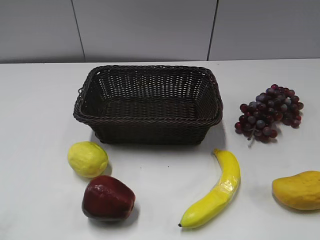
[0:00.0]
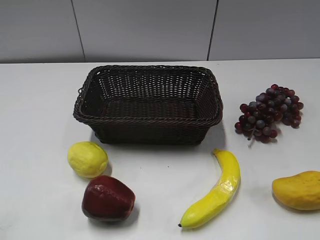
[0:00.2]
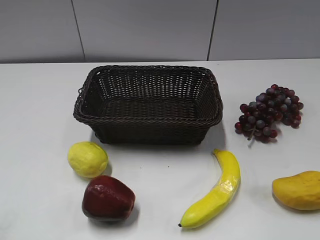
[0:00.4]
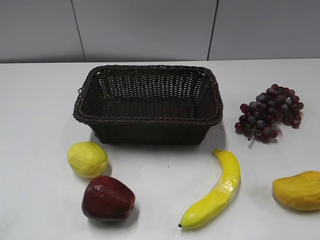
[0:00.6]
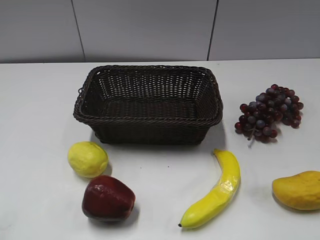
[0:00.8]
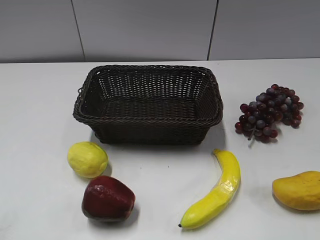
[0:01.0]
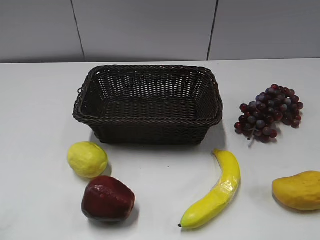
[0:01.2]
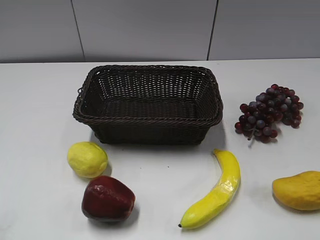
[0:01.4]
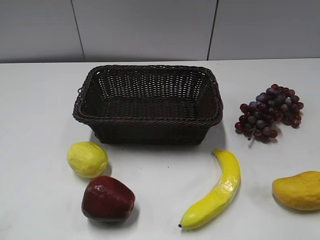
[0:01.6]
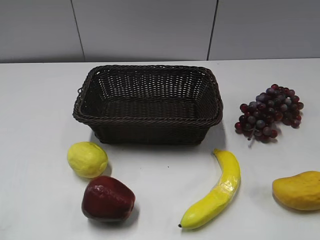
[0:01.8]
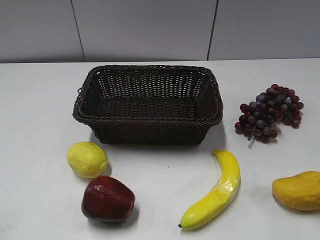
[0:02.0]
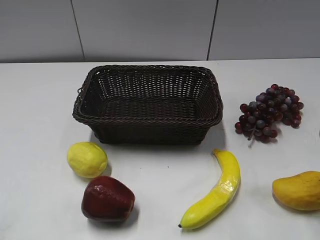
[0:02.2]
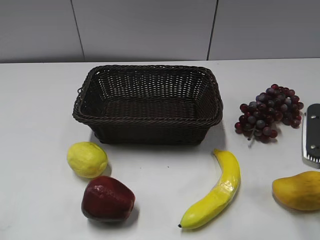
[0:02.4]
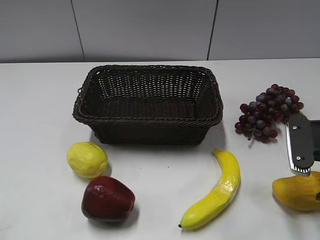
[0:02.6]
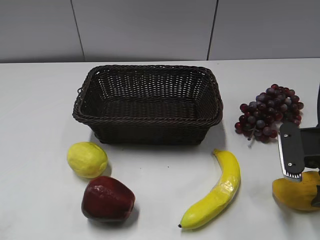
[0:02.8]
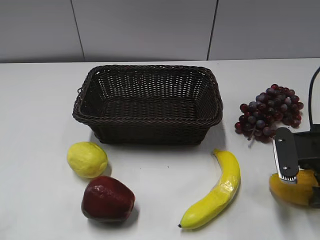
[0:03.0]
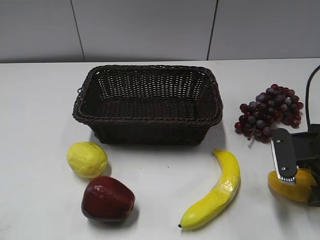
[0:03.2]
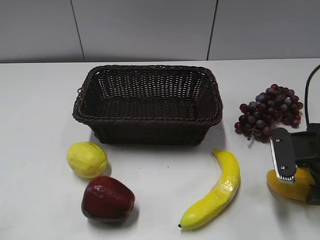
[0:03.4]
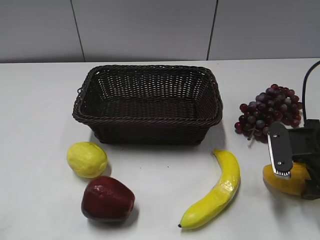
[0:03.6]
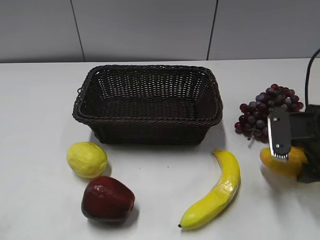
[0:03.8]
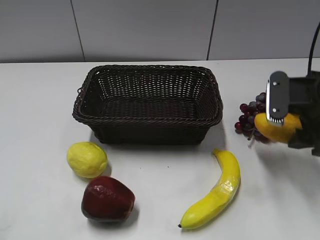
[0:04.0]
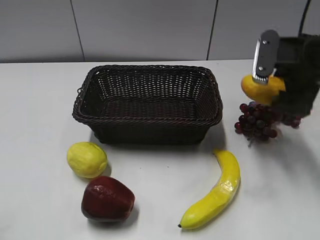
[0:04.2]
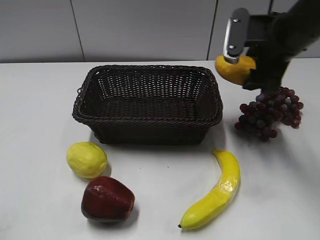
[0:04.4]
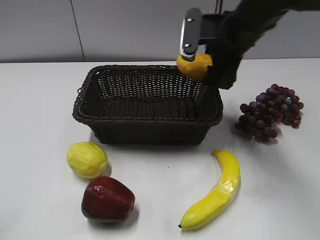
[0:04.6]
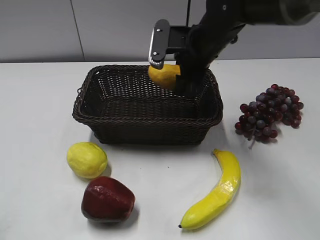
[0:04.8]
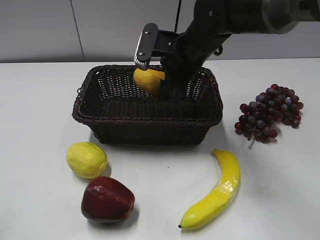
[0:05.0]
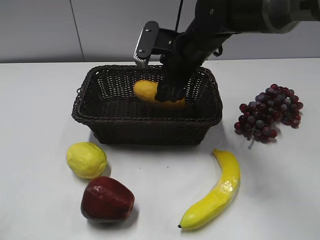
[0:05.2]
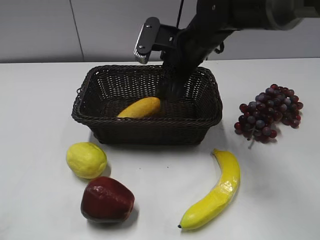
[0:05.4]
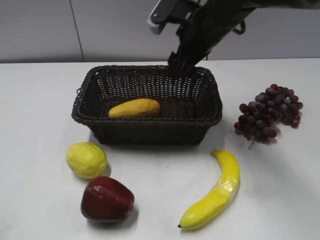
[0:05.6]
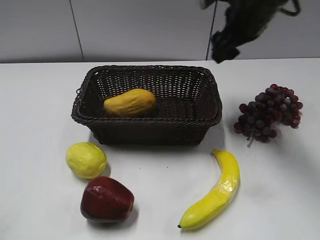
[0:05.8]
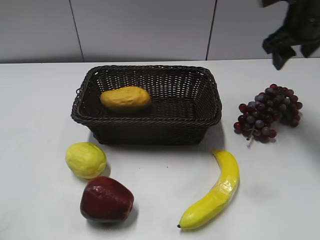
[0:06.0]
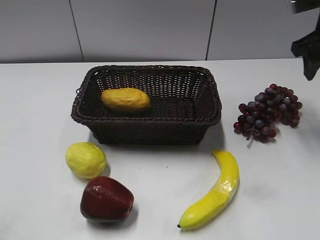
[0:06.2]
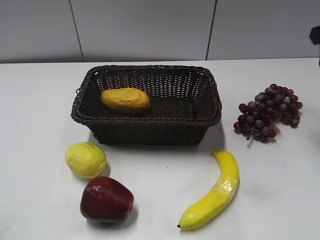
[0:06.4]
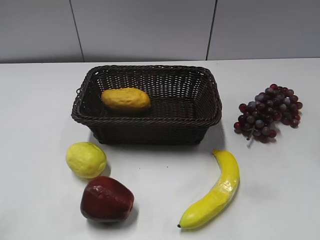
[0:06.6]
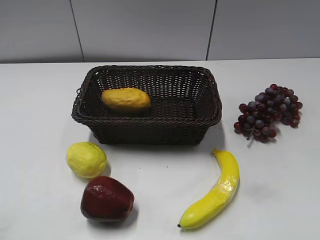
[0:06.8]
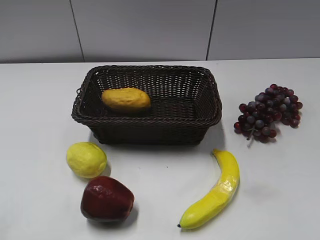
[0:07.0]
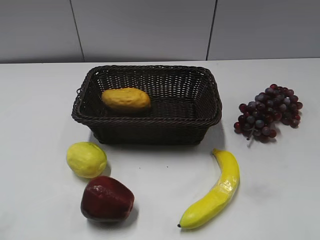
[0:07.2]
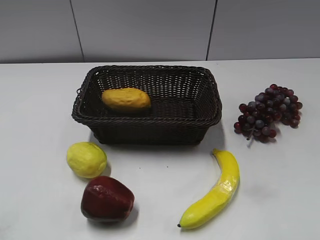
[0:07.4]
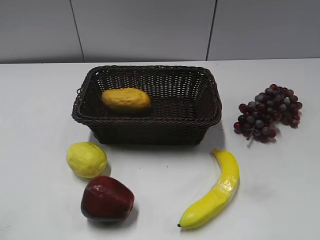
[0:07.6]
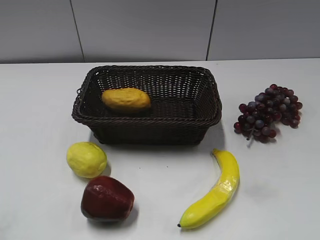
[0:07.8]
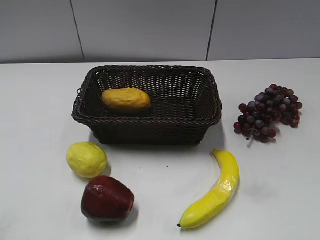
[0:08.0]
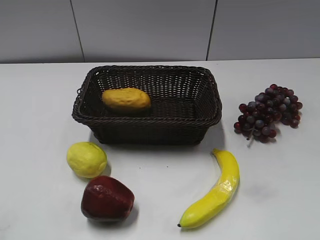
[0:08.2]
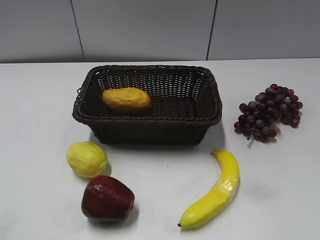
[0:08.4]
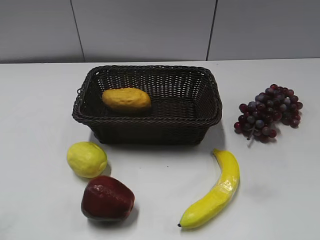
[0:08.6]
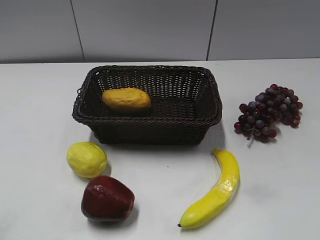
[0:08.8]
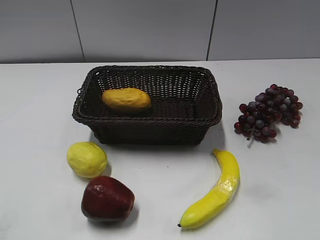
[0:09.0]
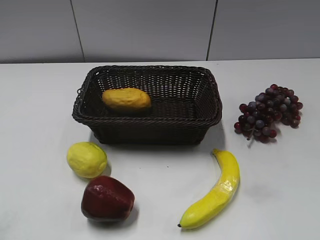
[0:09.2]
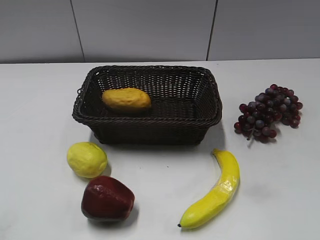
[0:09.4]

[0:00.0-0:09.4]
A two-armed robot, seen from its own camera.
Step, 0:02.2 to 0:03.2: Grasp the mango with right gripper.
Step, 0:03.4 to 0:05.2: Place the mango in the basket with right gripper.
0:01.6 to 0:03.2: The right gripper heads downward and forward, covering roughly 15 cm.
0:03.2 to 0:04.8: The right gripper moves to the left and forward, approximately 25 cm.
0:04.8 to 0:06.2: The right gripper goes some 20 cm to the right, and closes up.
0:06.2 to 0:07.8: The right gripper goes about 35 cm backward.
